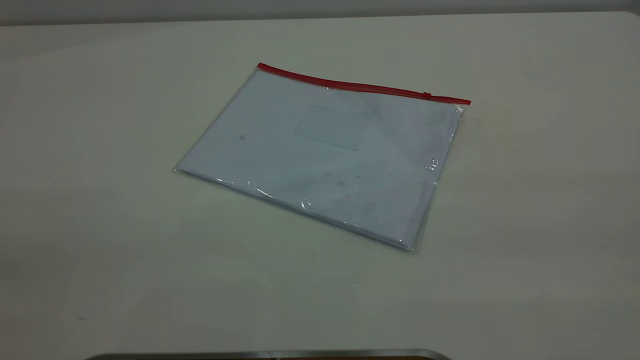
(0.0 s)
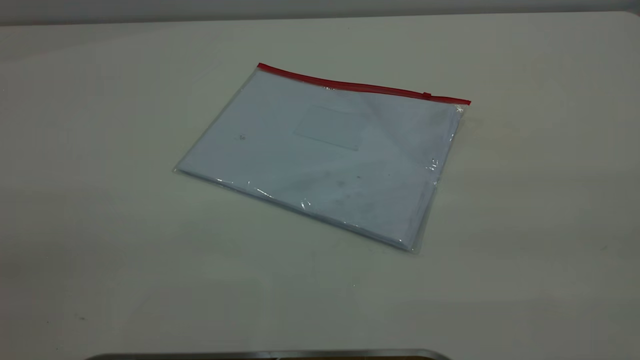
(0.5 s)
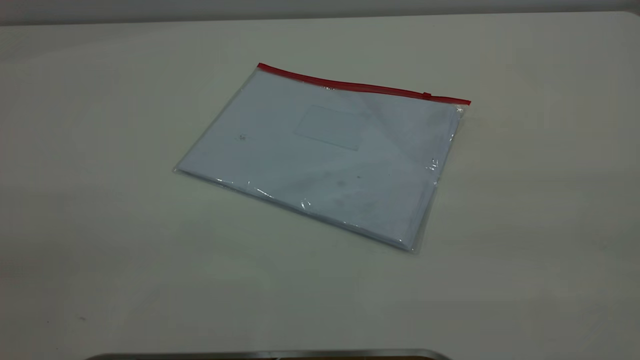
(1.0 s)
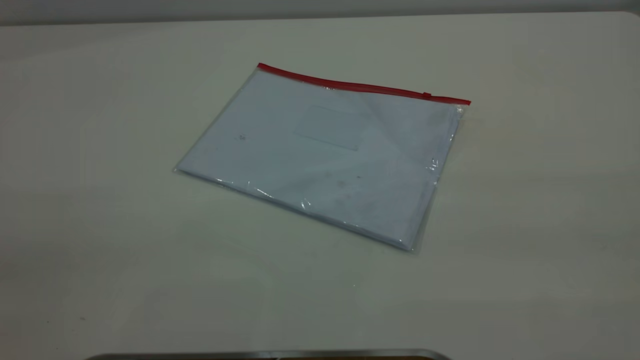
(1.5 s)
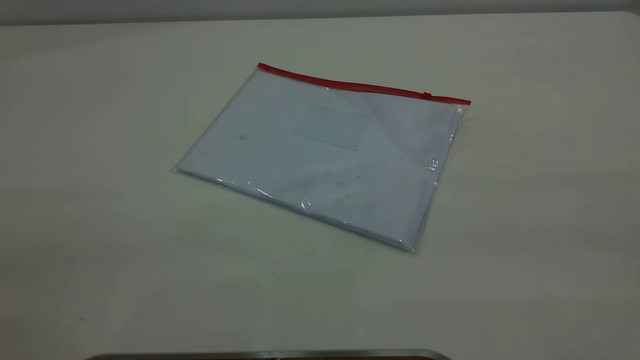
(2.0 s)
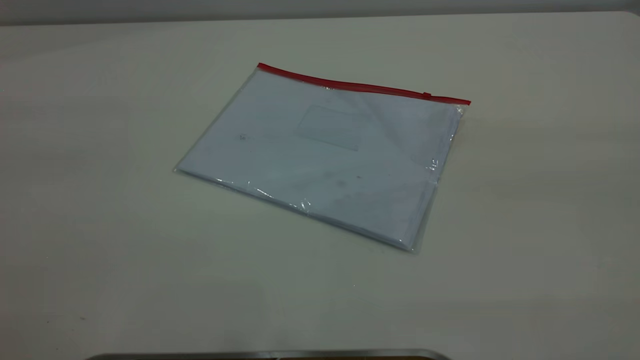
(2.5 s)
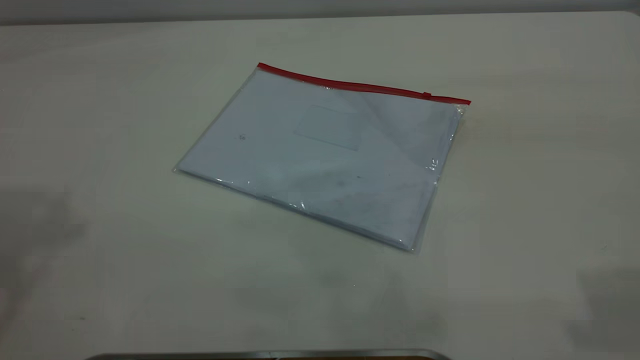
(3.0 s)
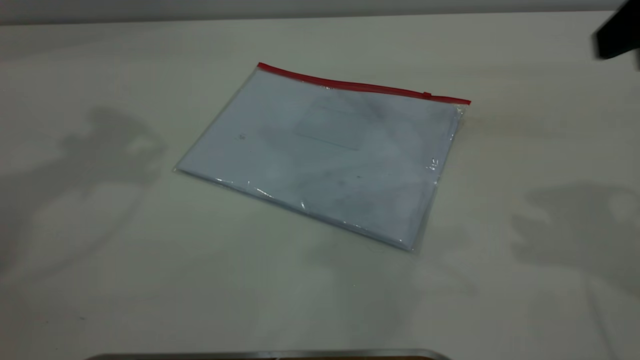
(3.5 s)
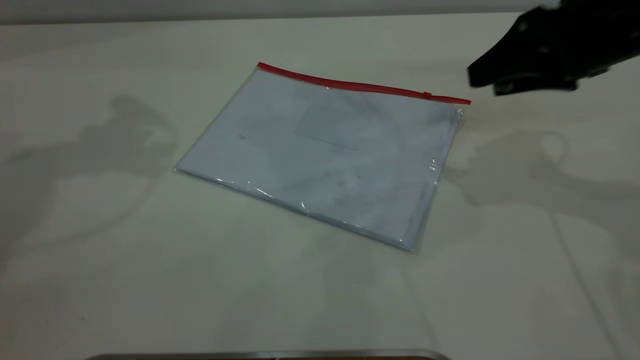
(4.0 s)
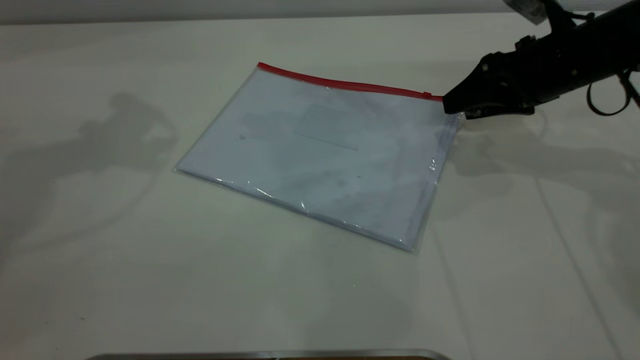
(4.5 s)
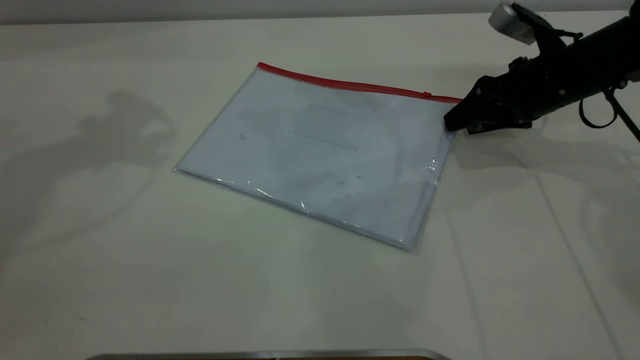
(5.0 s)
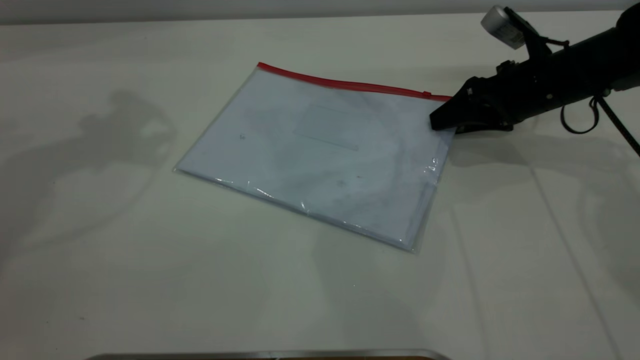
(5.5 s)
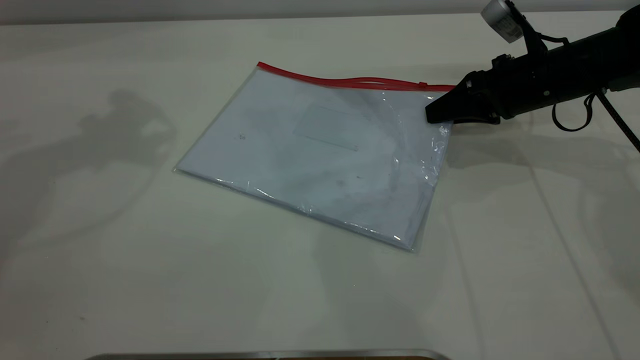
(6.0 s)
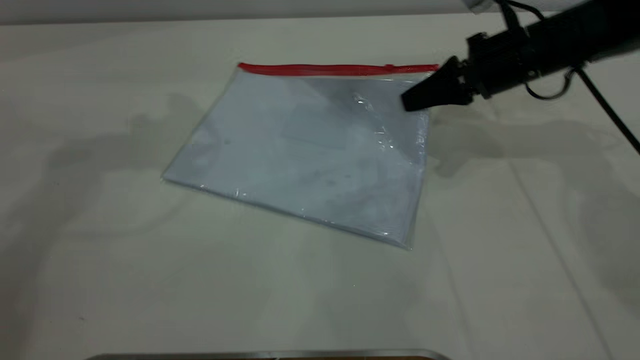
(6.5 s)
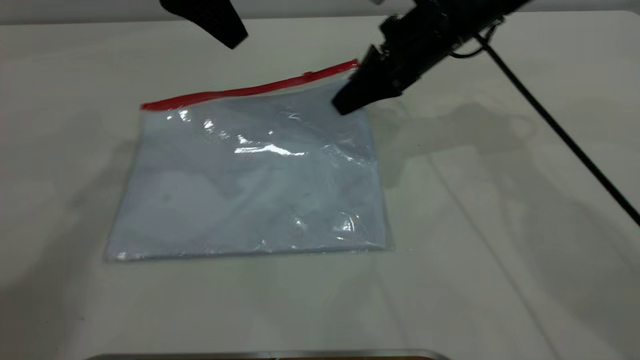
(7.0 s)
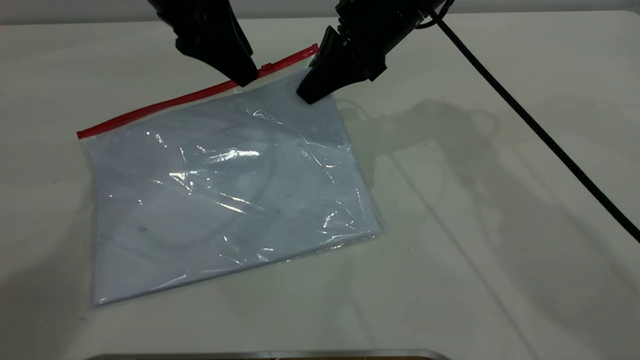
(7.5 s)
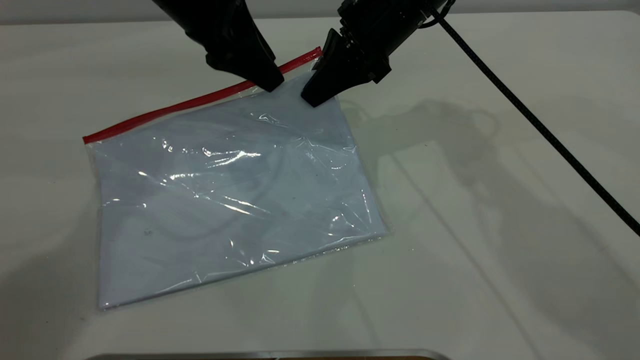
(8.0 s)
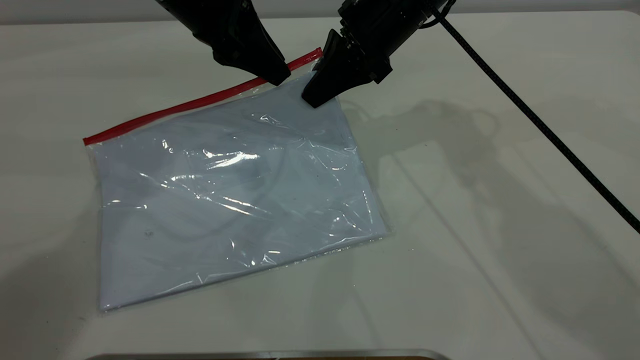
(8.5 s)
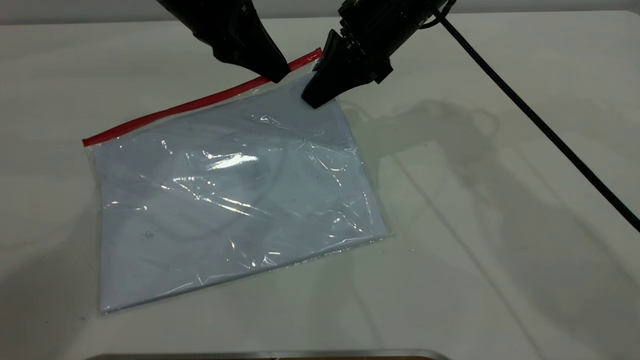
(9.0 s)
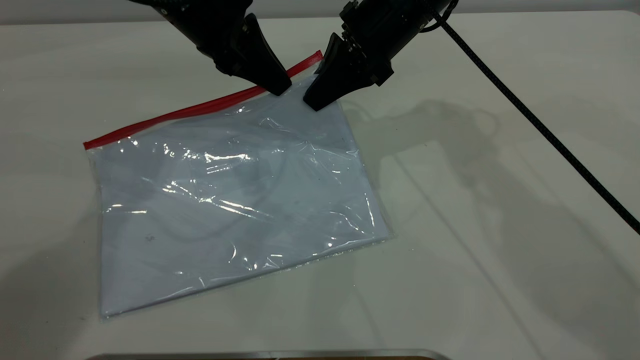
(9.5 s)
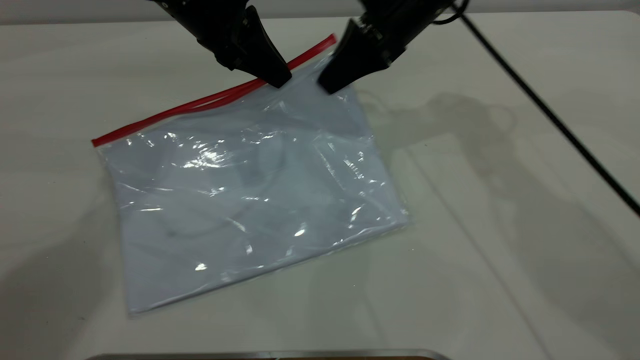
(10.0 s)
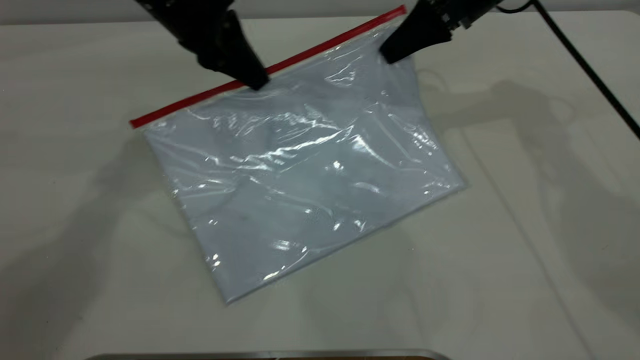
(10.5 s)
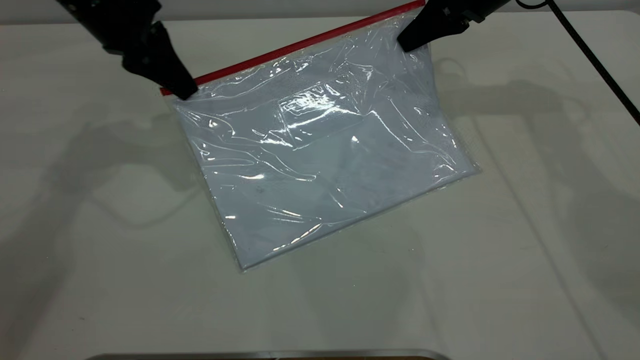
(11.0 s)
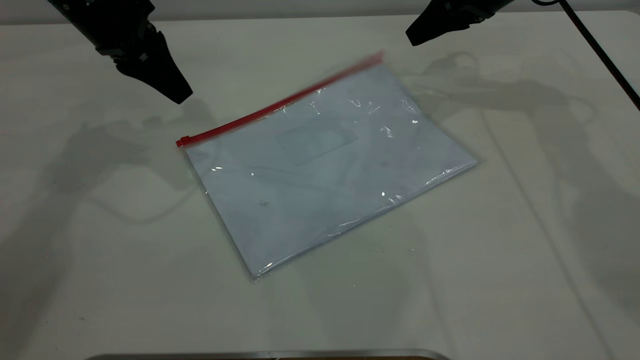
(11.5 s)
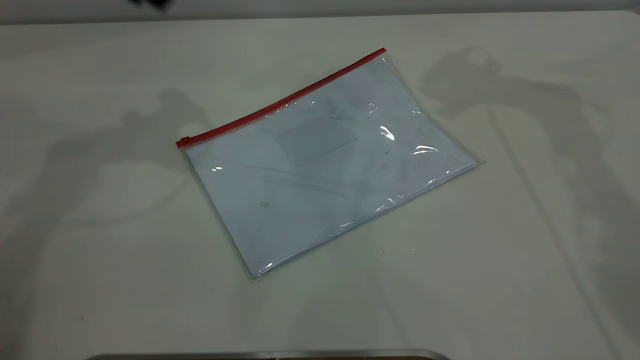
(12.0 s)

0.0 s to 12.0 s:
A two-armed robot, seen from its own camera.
Step, 0.0 to 7.0 s: Pick up the transparent plastic bag with the right gripper.
Step, 7.5 to 11.0 s: Pulling up the zipper on the transparent plastic bag with the left gripper to close it.
0.0 to 2.0 s: The two grippers keep their place.
2.0 to 4.0 s: The right gripper moves forward and downward, roughly 40 cm, and opens its fingers.
4.0 to 6.0 s: The right gripper travels downward and forward by roughly 15 cm, and closes.
6.0 to 8.0 s: The left gripper heads downward and to the right, covering some 20 cm. The right gripper shifts some 20 cm to the left and upward.
8.0 to 10.0 s: The left gripper closes.
10.0 to 12.0 s: The left gripper shifts about 15 cm upward and to the left, and opens; the right gripper goes roughly 20 cm upward and to the right, and opens.
